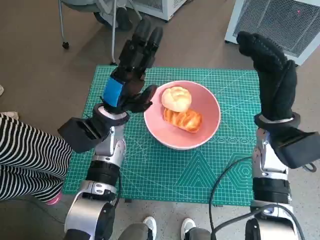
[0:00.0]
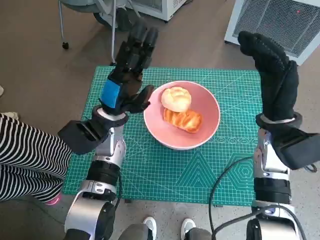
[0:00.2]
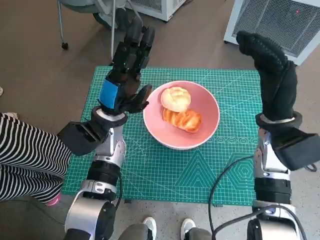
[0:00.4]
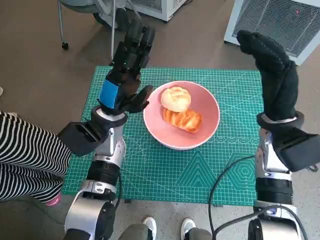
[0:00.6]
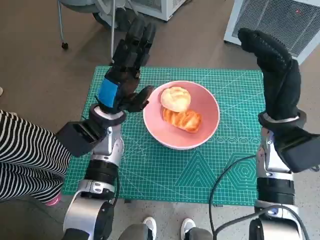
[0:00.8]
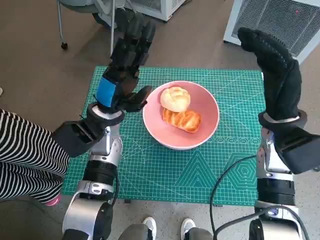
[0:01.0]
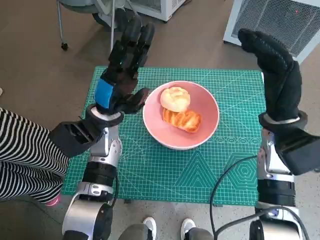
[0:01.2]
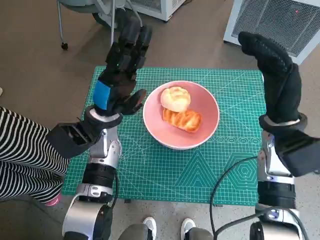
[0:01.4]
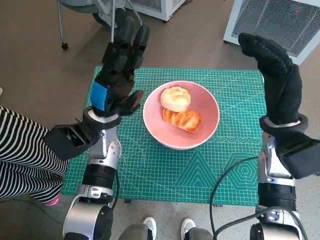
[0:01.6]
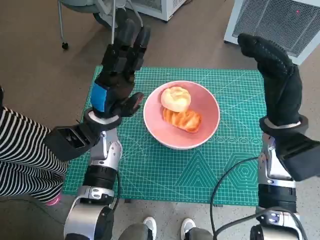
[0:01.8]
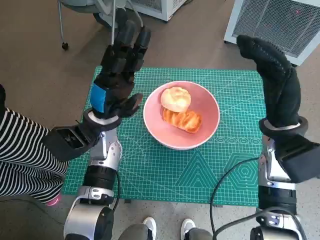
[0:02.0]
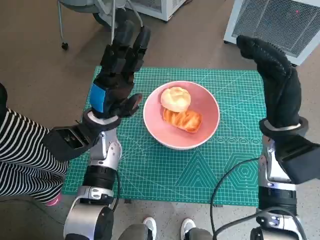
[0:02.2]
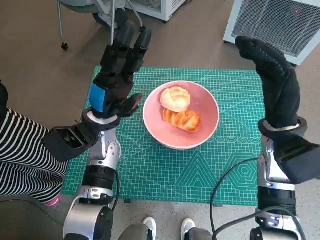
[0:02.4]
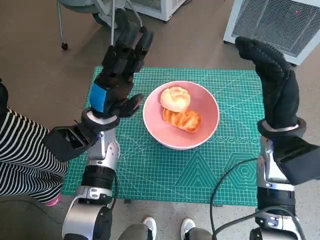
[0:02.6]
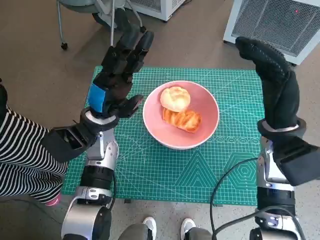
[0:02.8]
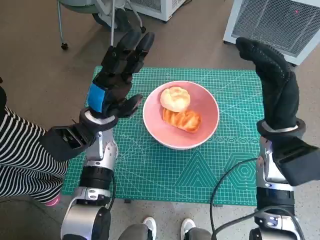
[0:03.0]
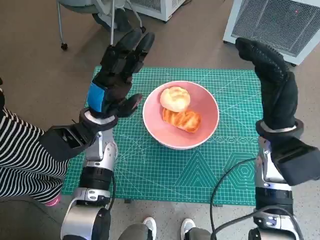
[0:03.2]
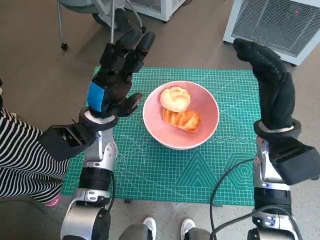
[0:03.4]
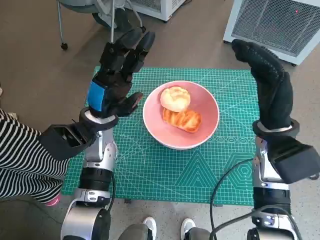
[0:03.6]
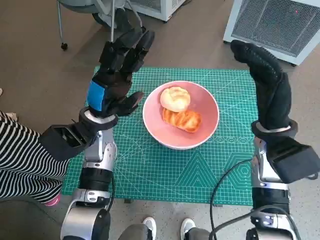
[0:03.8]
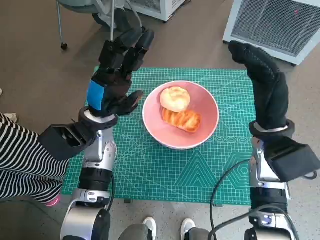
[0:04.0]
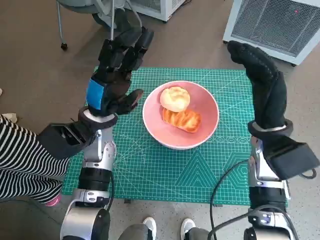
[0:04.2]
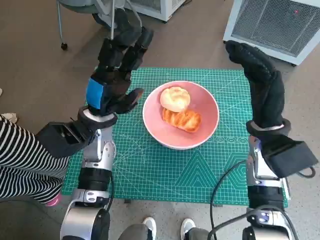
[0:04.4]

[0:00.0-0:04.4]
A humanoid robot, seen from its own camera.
Task of the whole recording: Push the bowl into the center of the table and put the bread into the bowl.
0:01.4 to 0:03.0: Neither hand changes place.
0:03.0 to 0:04.4: The hands stay close to where they were, moving slightly.
